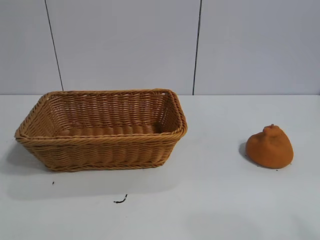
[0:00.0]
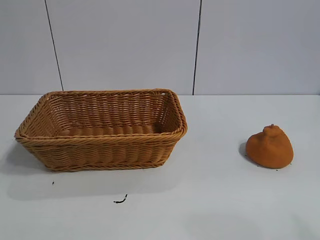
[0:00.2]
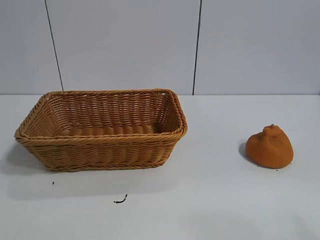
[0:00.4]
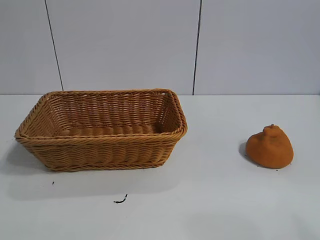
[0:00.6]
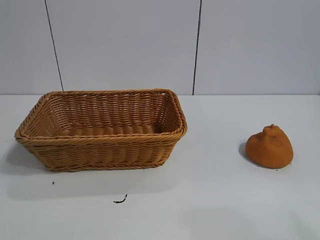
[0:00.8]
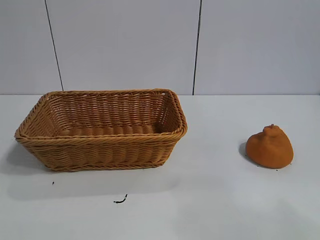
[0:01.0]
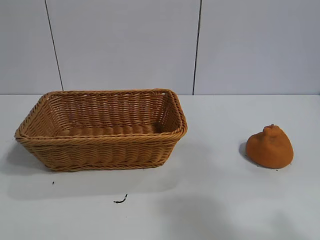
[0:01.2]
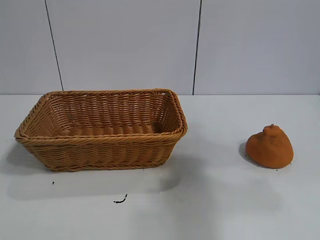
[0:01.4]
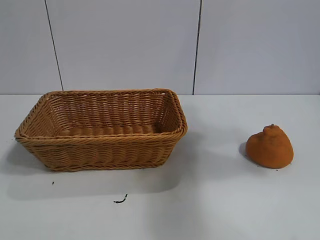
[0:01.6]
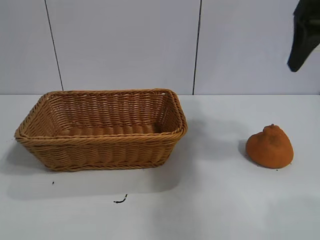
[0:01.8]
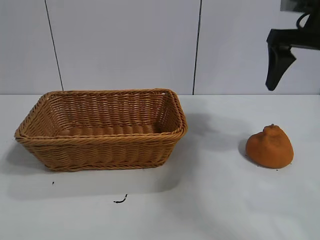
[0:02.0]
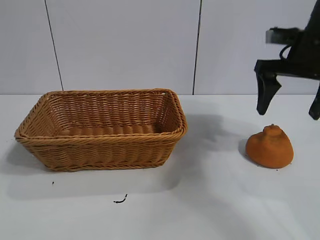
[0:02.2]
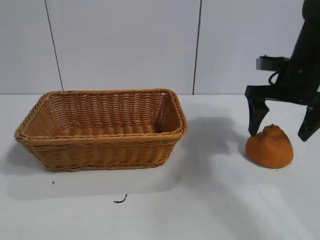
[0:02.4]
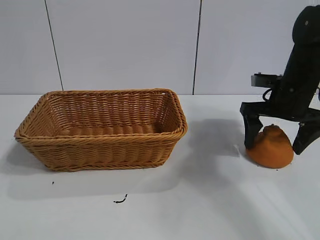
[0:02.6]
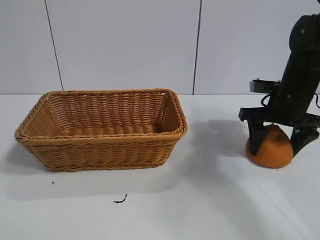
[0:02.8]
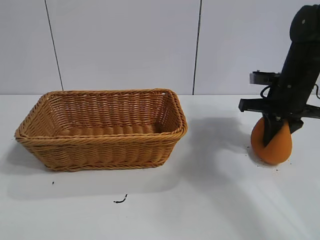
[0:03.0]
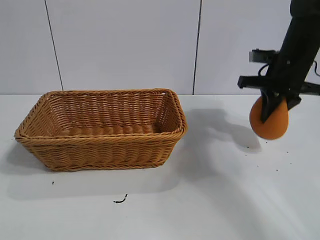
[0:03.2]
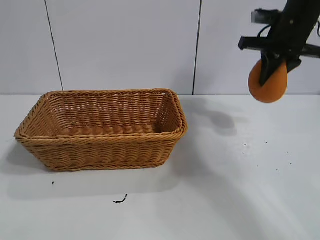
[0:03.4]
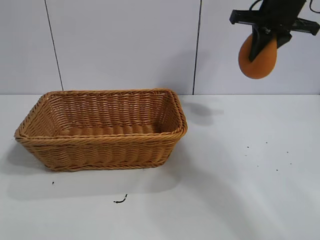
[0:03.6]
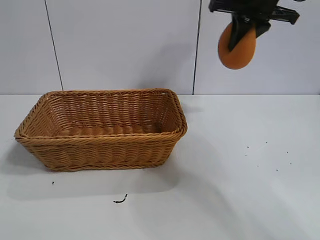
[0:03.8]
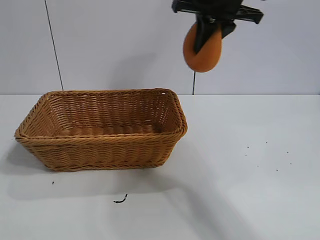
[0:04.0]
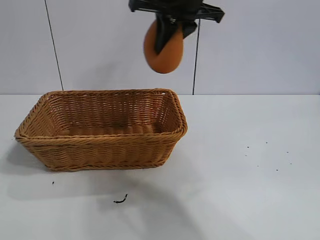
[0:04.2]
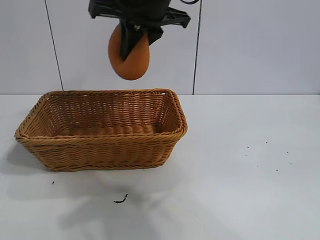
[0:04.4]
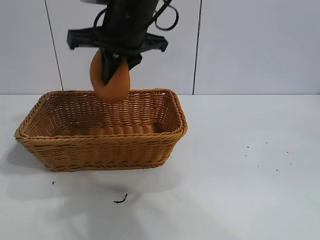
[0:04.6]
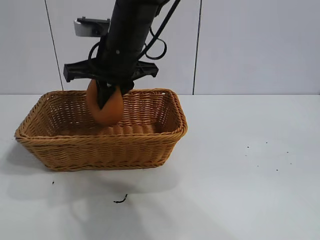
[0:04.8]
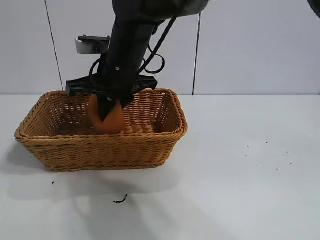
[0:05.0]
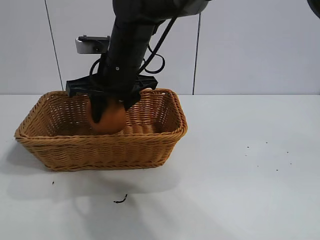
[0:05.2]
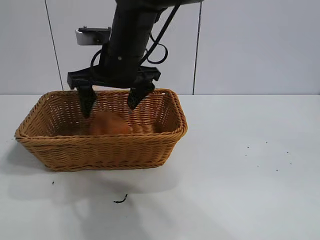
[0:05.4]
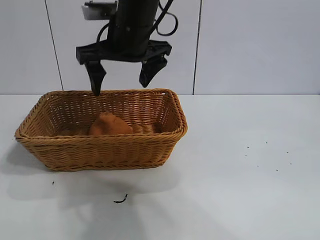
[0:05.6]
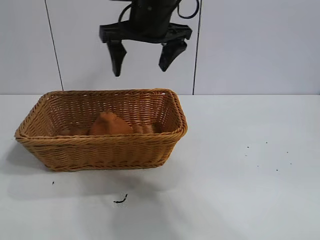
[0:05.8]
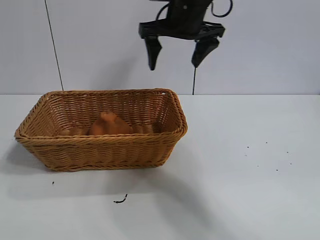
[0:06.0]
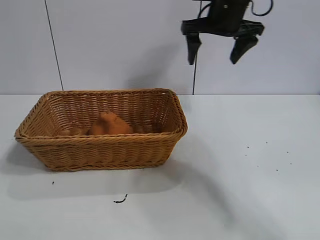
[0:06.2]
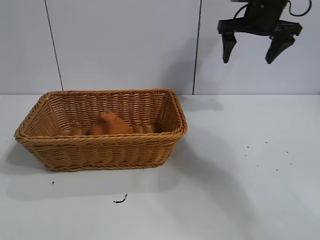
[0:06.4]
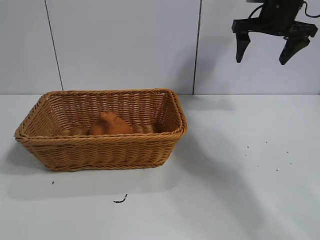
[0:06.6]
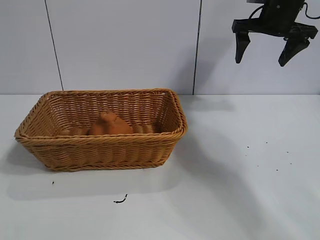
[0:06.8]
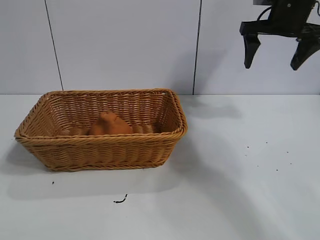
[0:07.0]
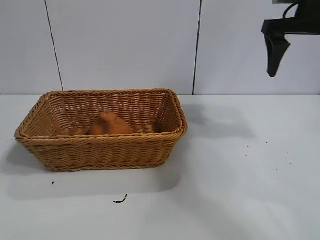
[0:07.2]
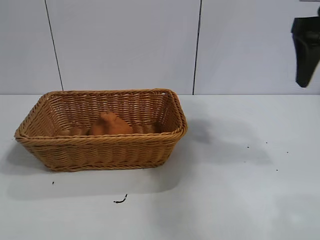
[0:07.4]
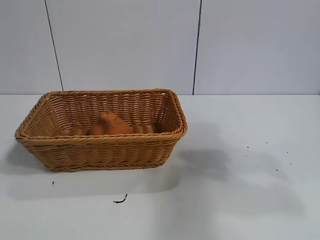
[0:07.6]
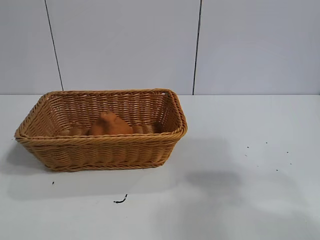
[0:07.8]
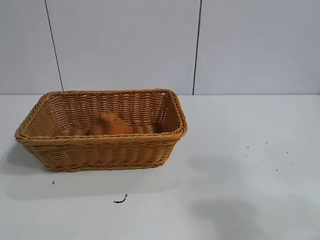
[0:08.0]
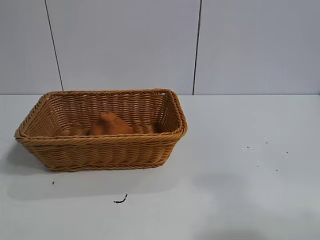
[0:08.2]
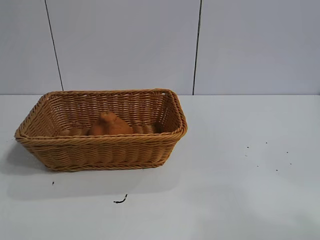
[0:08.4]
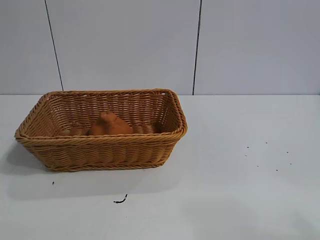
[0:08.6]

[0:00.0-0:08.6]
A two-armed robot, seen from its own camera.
Task of the whole recording: pick up the orange and put it into the basket.
Step, 0:01.0 to 0:02.8: Grasp the orange with right gripper.
Step, 0:03.2 to 0:05.4: Place the orange in the basket with right gripper.
